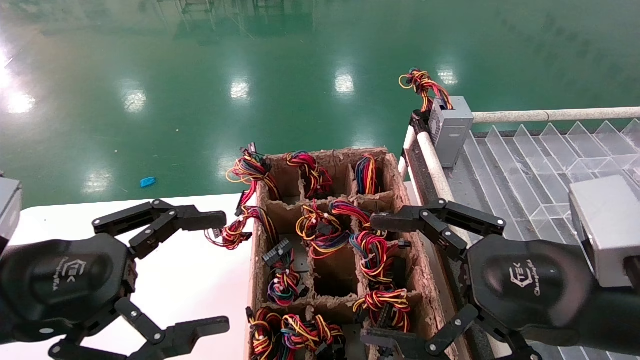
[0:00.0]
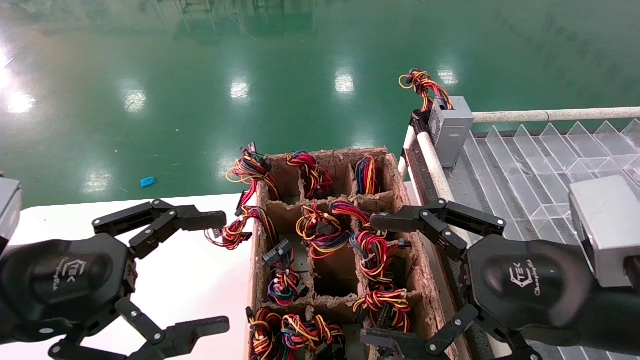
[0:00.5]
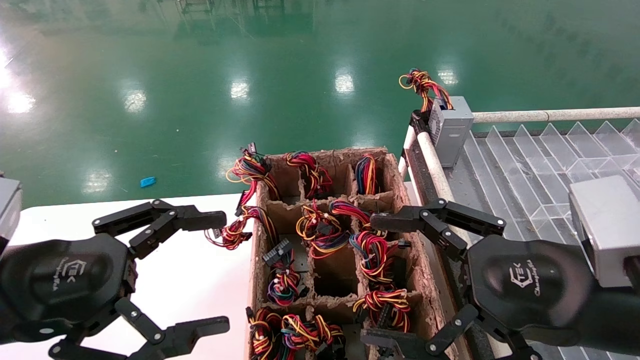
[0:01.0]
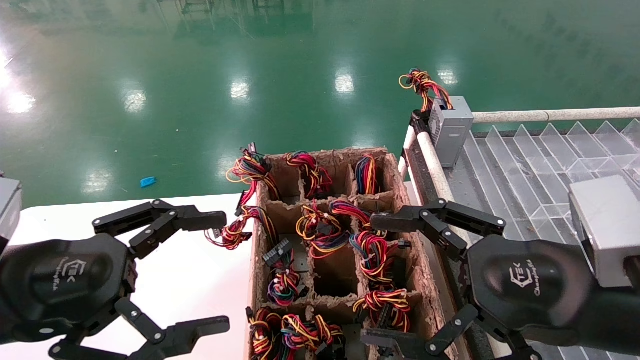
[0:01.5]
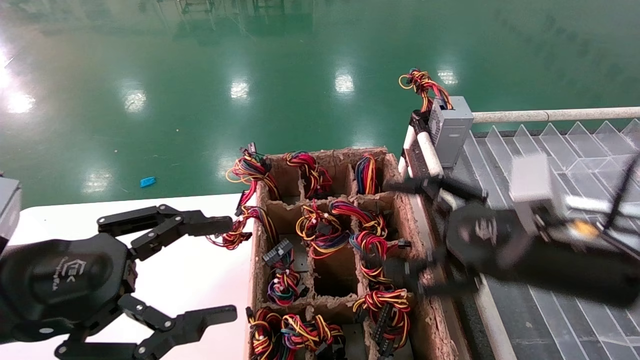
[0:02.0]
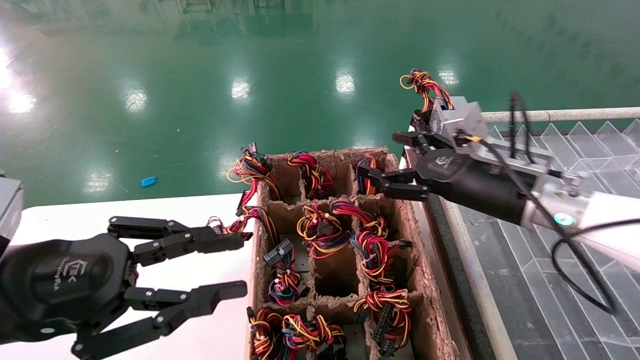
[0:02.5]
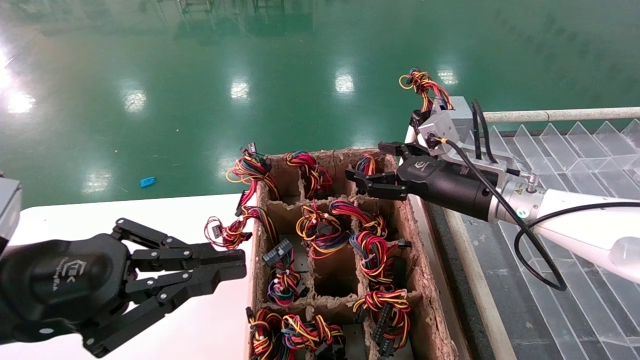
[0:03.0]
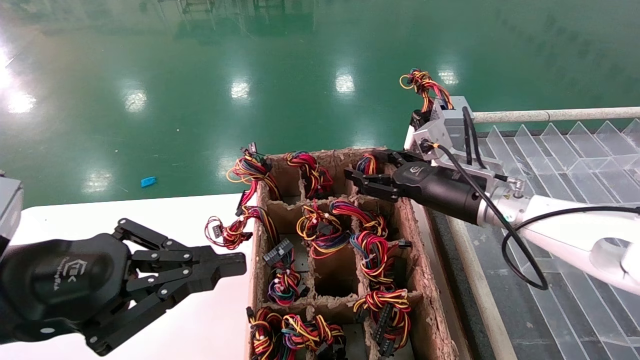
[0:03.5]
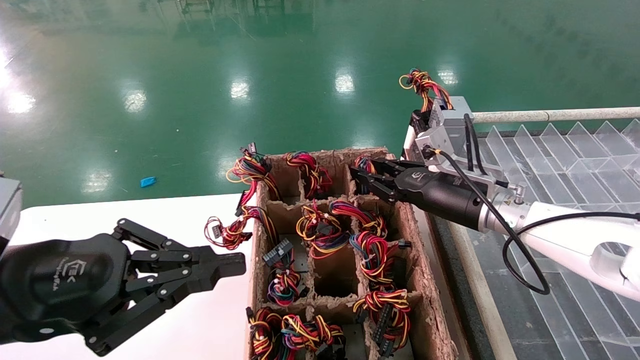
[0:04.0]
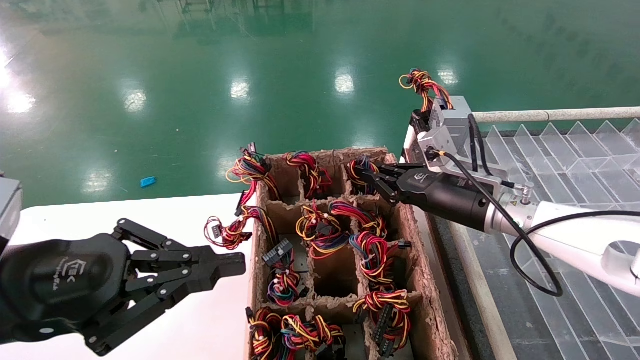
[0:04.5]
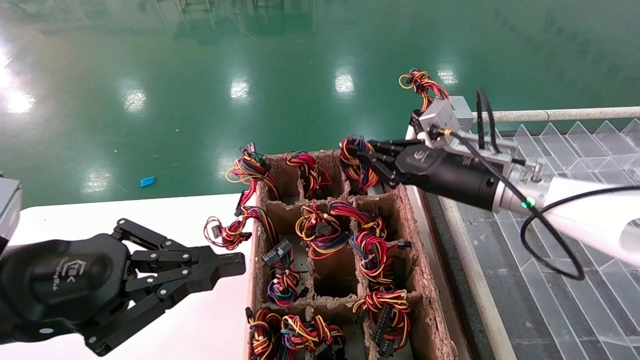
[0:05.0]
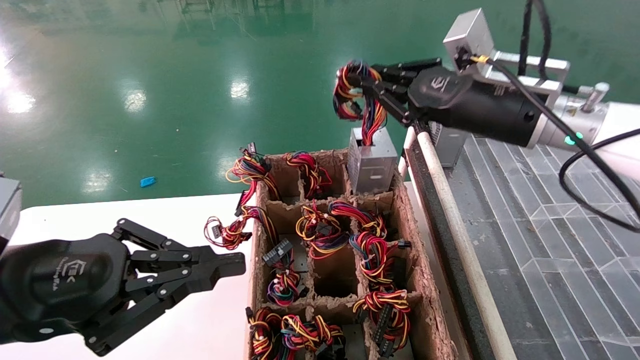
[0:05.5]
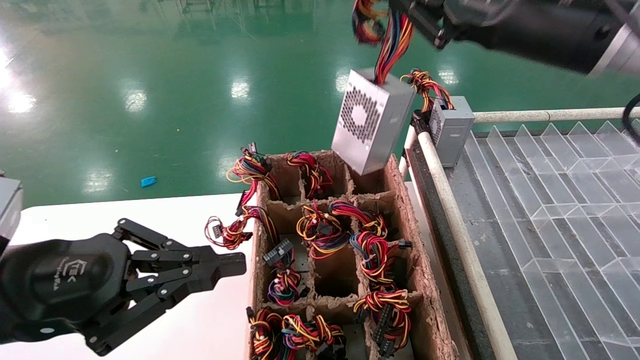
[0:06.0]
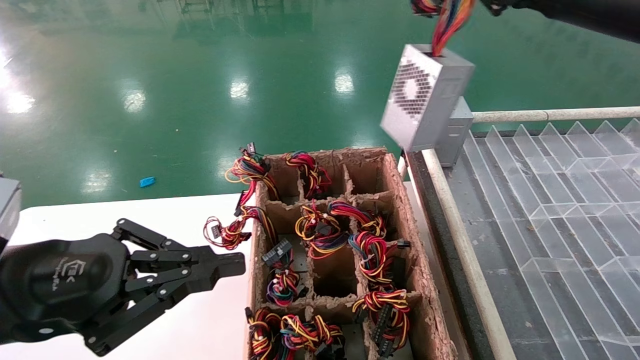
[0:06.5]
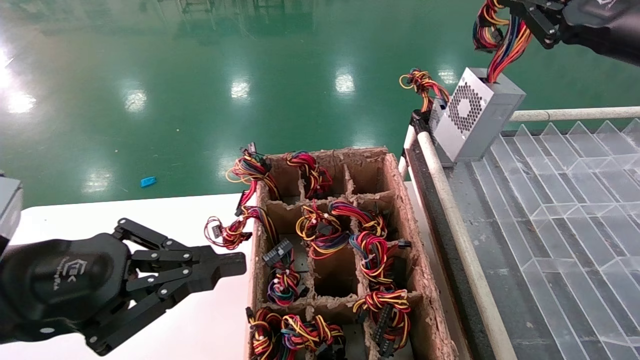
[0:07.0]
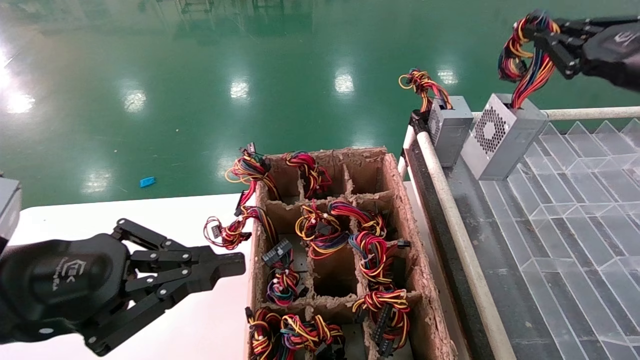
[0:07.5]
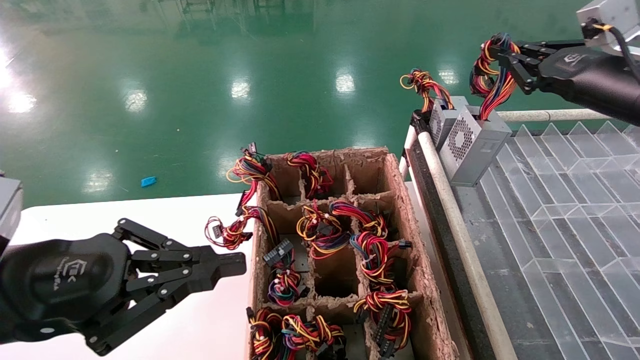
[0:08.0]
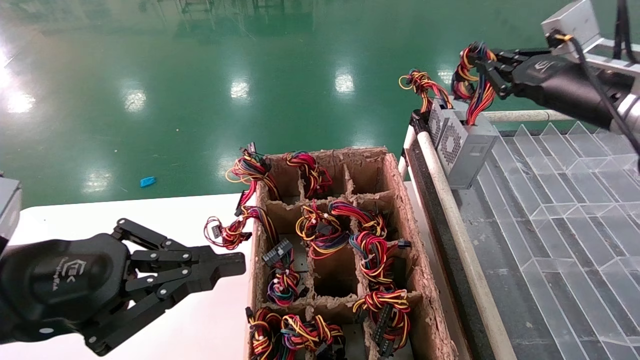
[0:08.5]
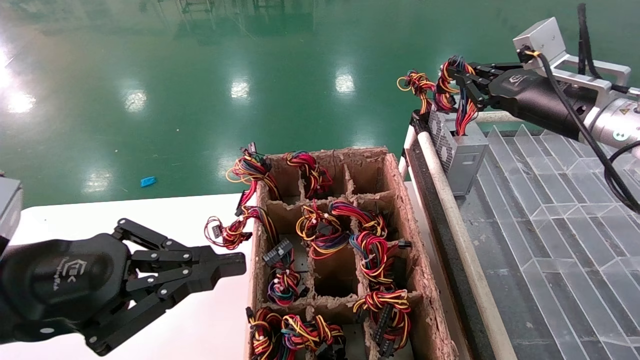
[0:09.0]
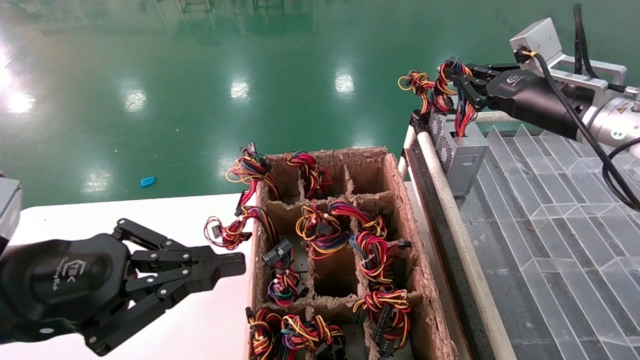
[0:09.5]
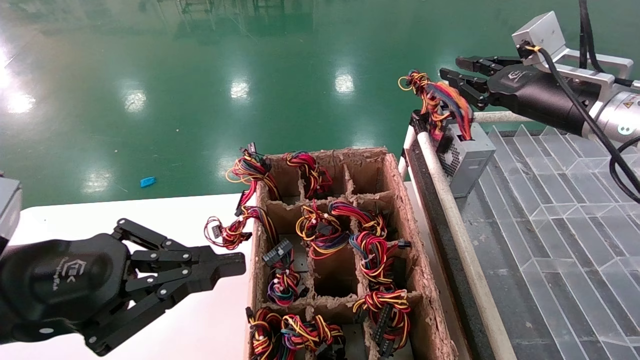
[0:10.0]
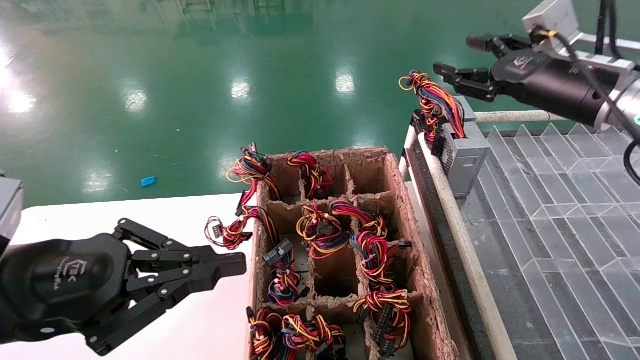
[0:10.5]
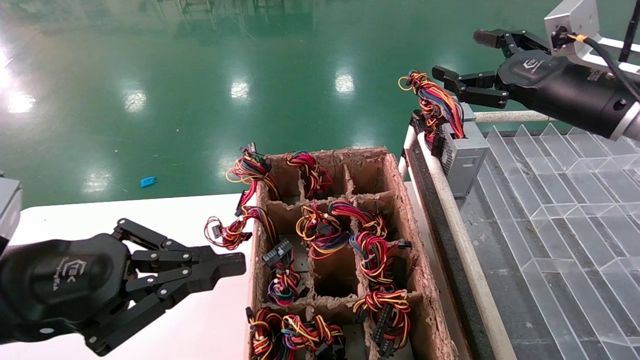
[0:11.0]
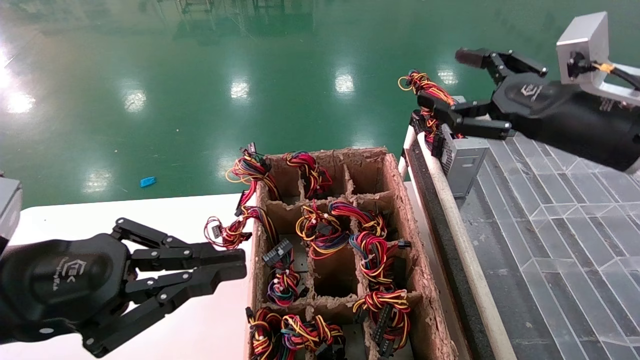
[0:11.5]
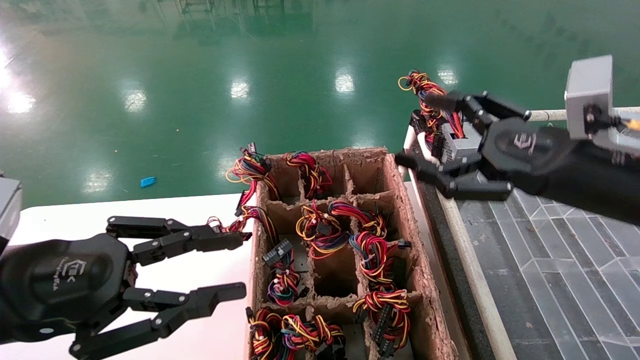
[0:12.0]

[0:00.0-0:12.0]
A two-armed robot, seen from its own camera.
Step, 0:02.0 to 0:04.0: Grab the main unit power supply from the containment box.
Step, 0:04.5 to 0:11.0: Place the main unit power supply in the designated area.
0:00.0 to 0:02.0: The right gripper heads forward, covering approximately 5 cm.
0:02.0 to 0:04.0: The left gripper closes; the right gripper heads forward, covering about 15 cm, and closes up.
0:04.0 to 0:06.0: The right gripper goes approximately 25 cm upward and backward, and closes up.
0:06.0 to 0:08.0: The right gripper goes roughly 15 cm to the right and downward.
0:08.0 to 0:10.0: The right gripper ends up some 5 cm from where it was.
0:10.0 to 0:12.0: The right gripper shifts roughly 15 cm backward and downward, and opens.

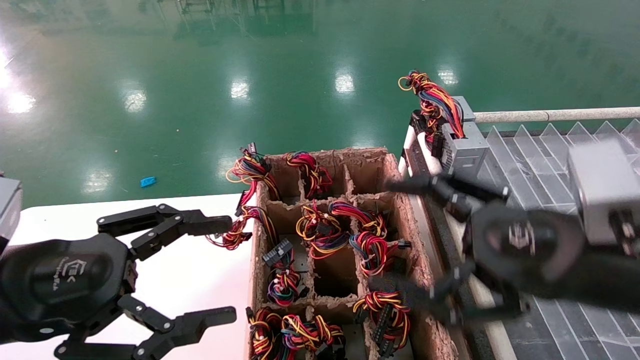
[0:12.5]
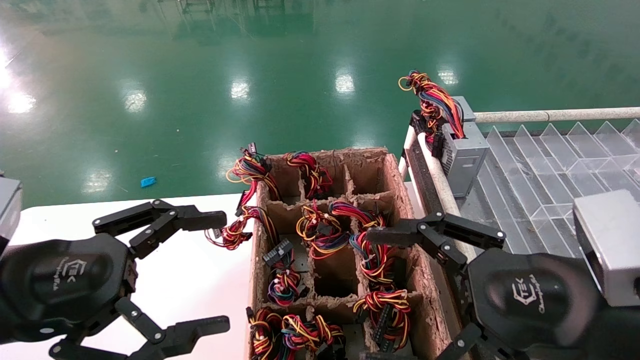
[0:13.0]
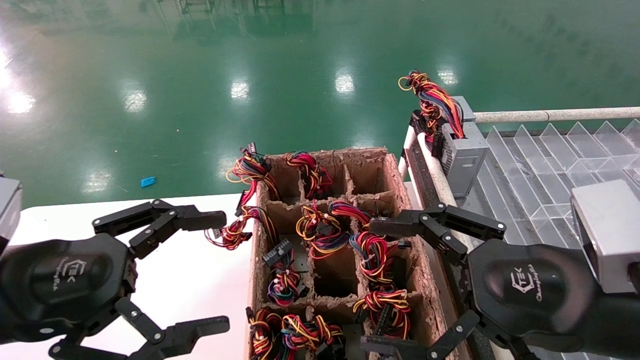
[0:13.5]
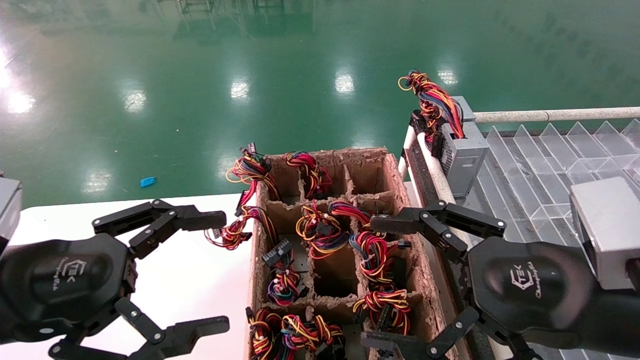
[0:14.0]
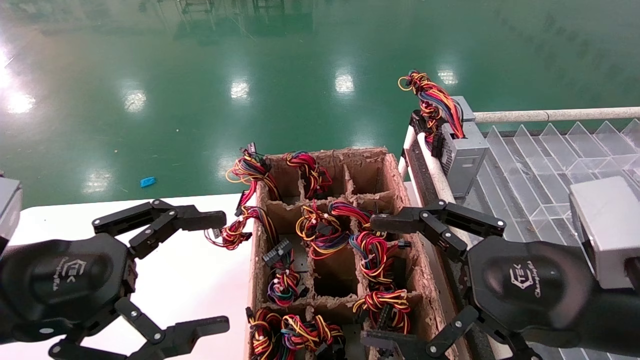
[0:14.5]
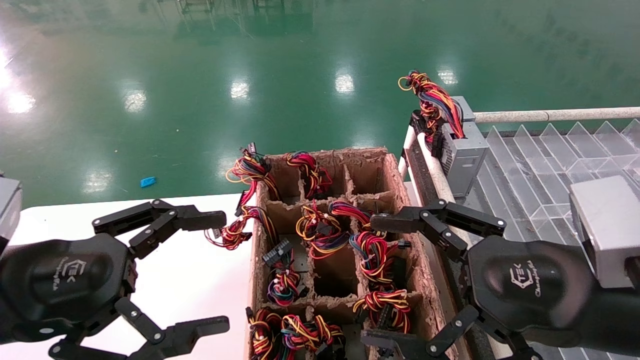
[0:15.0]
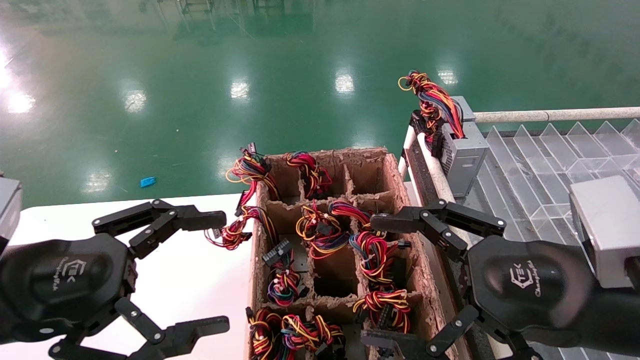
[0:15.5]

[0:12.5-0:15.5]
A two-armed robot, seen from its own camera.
0:12.5 to 0:14.0: The grippers stay close to where they were, moving slightly.
0:14.0 to 0:15.5: Both grippers stay put.
